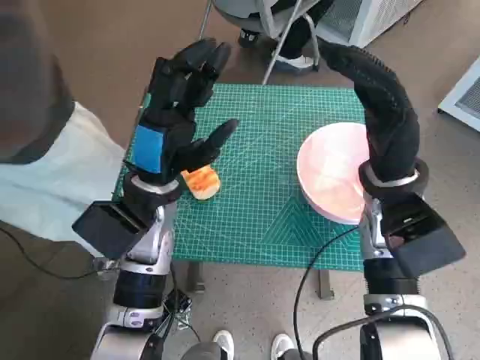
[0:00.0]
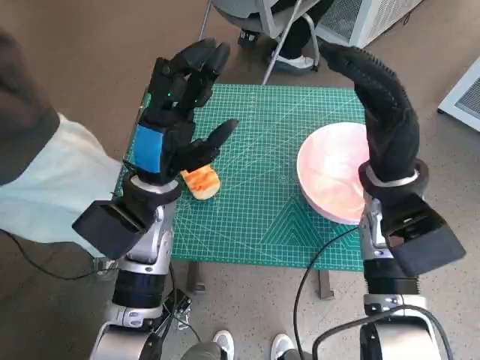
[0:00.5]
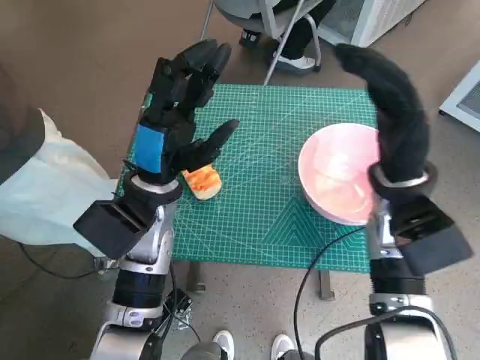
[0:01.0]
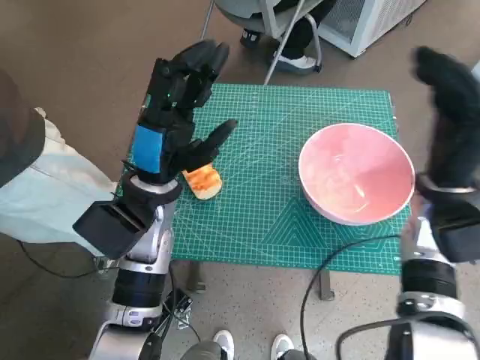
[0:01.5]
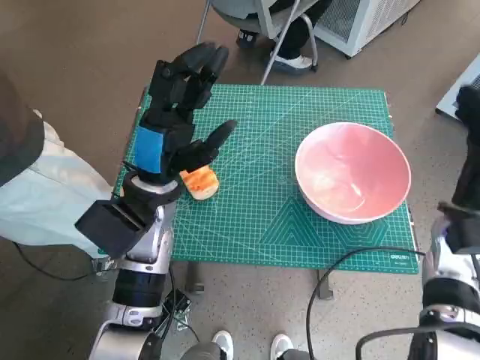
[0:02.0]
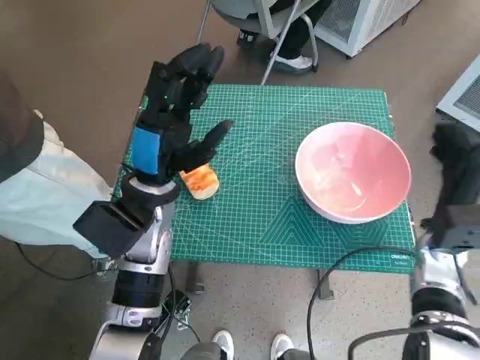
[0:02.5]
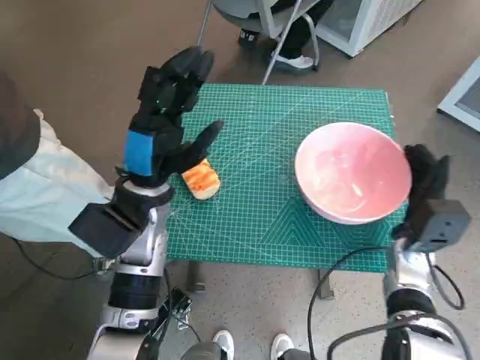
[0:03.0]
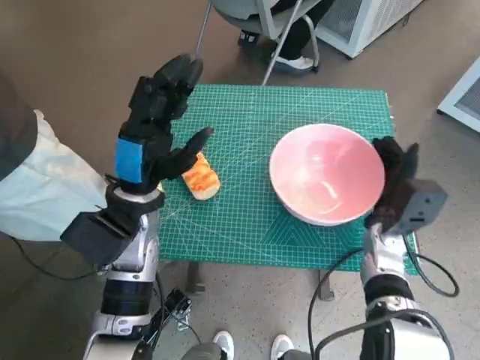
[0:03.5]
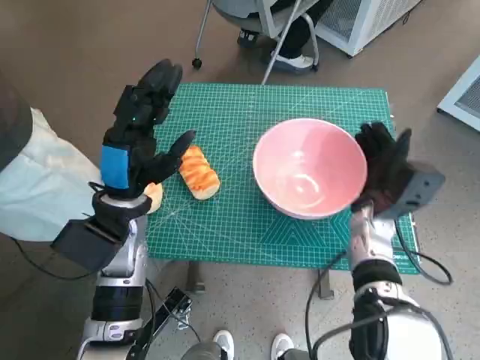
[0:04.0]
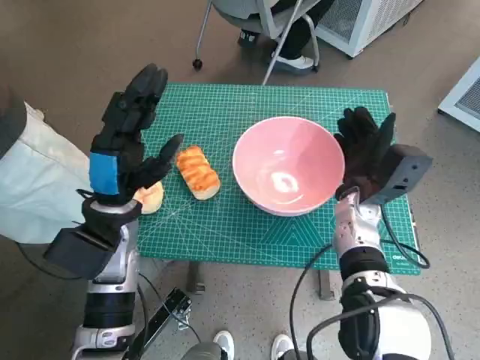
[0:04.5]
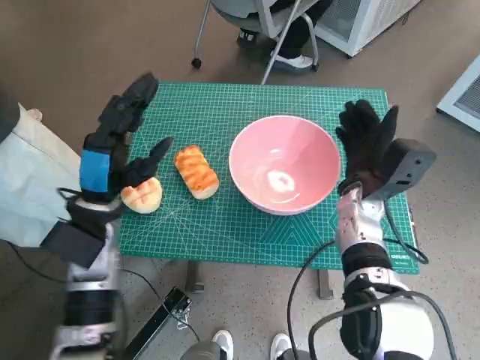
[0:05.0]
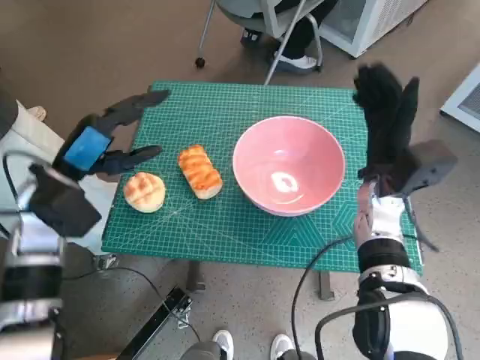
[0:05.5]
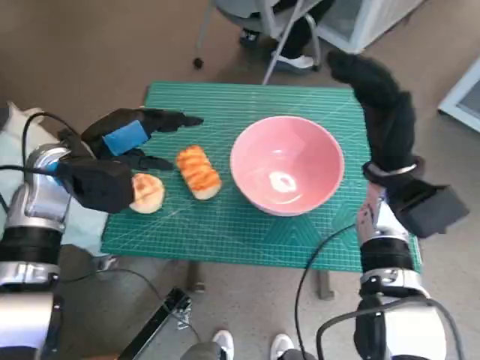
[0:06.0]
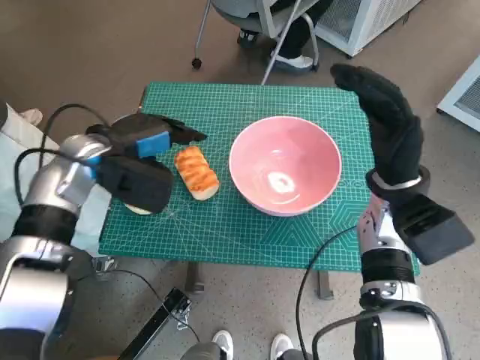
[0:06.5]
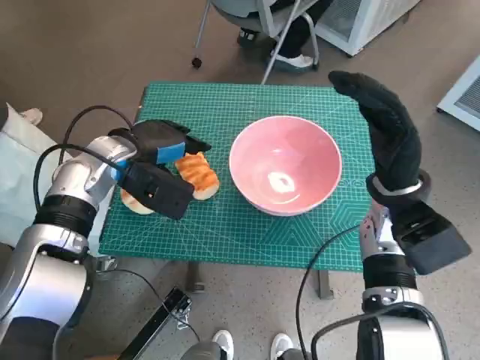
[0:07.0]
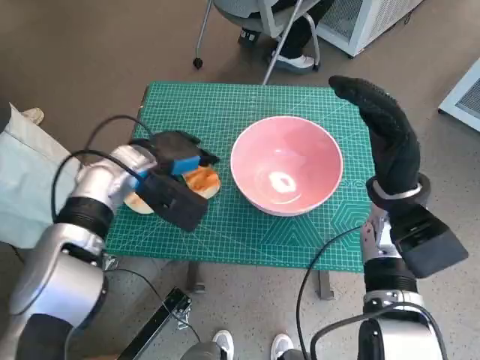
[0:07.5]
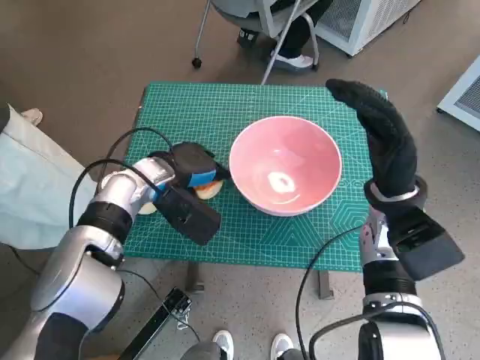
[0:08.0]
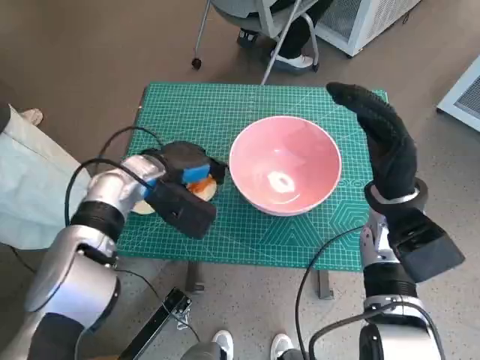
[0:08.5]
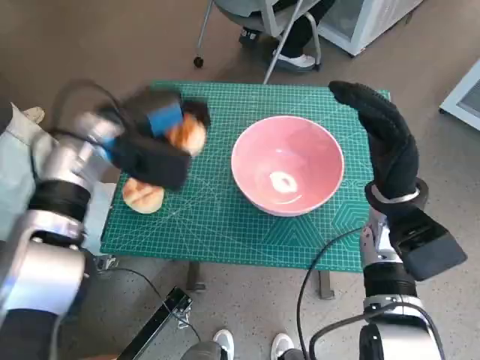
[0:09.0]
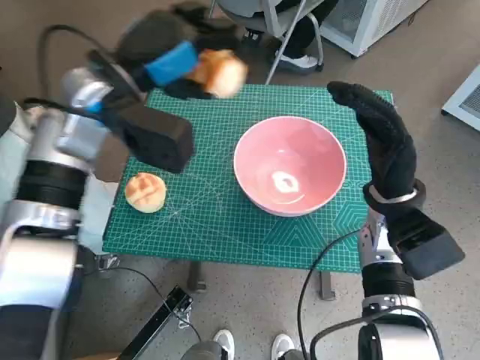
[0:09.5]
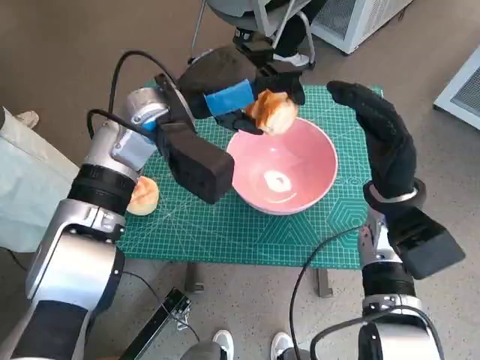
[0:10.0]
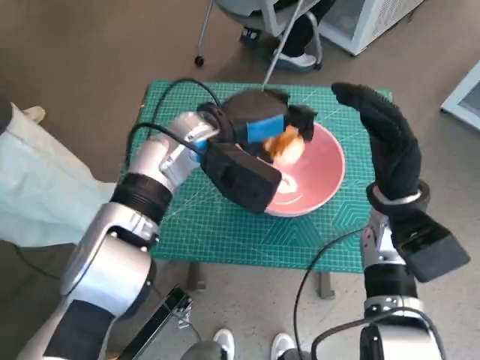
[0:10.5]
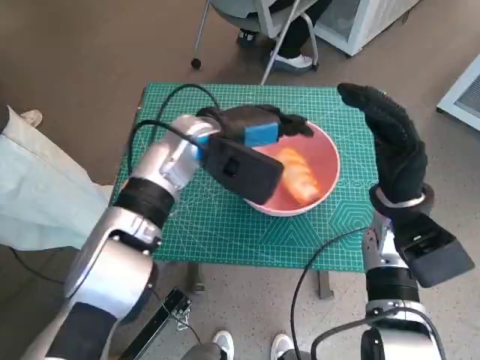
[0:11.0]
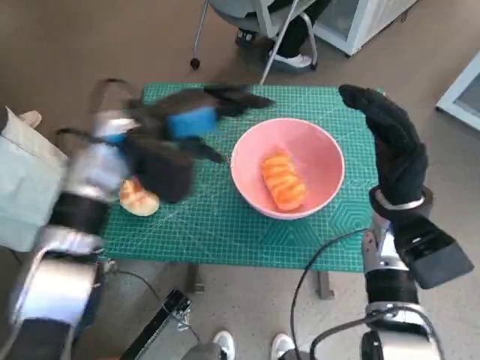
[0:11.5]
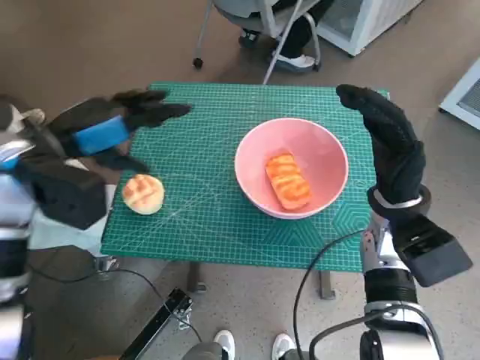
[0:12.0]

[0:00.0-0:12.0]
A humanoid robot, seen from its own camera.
Task of the whole recording: Push the bowl to the center of the table and put the bread into the bowl.
Step, 0.0 to 5.0 s: Move the pink bowl to the center of table with right hand.
Step, 5.5 to 8.0 s: Grasp the long bread with left hand.
Step, 8.5 to 10.5 s: Place the long bread in pink bowl with left hand.
2.0 to 4.0 s: The right hand heads to the left and downward, covering some 10 cm.
4.0 to 6.0 s: The right hand goes roughly 10 cm upward, while the left hand goes roughly 10 cm to the left and upward.
6.0 to 8.0 s: The left hand heads to the right and downward, covering some 10 cm.
8.0 to 10.0 s: The left hand travels upward by about 10 cm.
10.0 to 12.0 s: The left hand is displaced to the left and backward by roughly 15 cm.

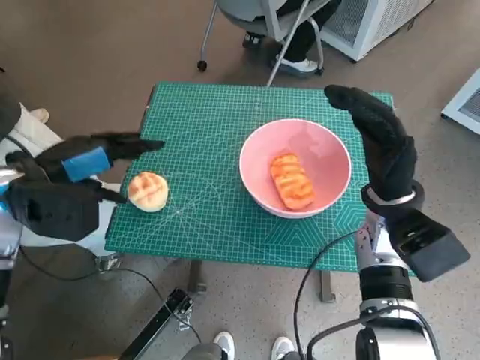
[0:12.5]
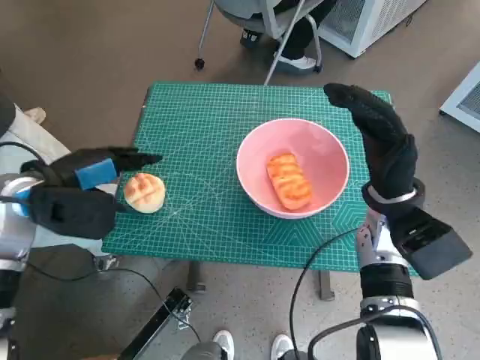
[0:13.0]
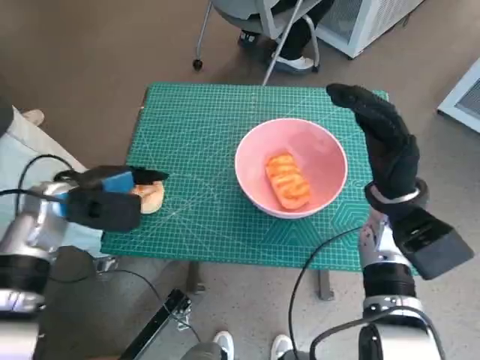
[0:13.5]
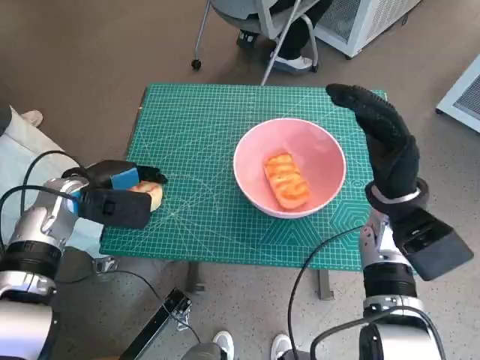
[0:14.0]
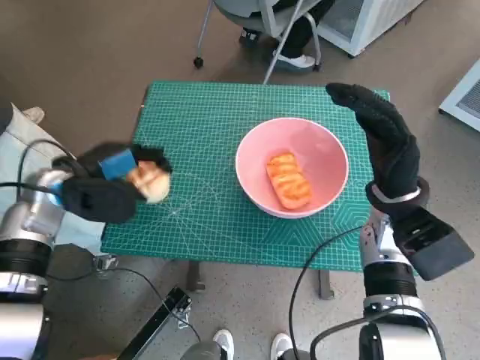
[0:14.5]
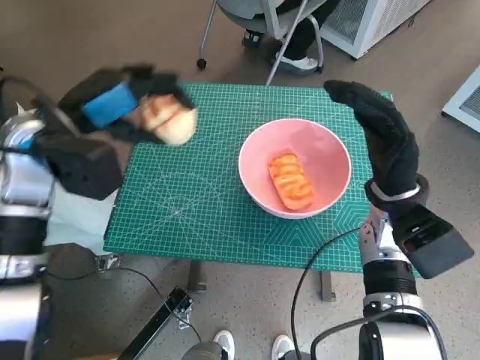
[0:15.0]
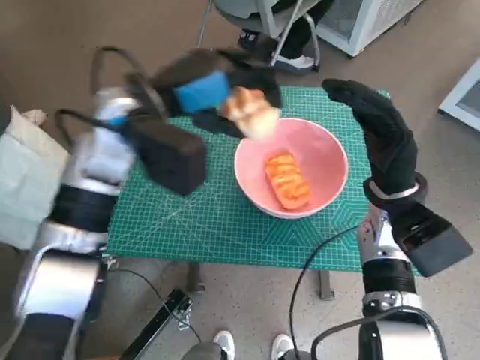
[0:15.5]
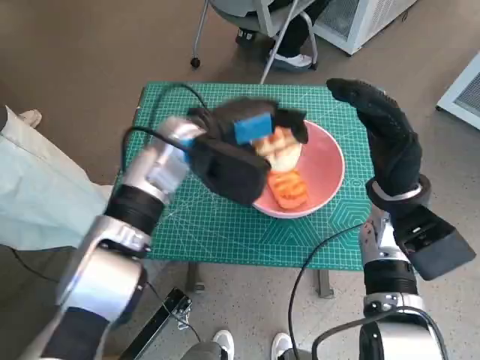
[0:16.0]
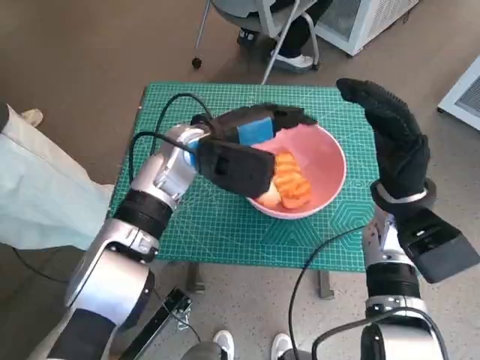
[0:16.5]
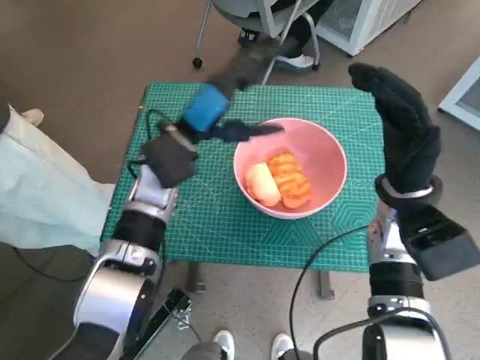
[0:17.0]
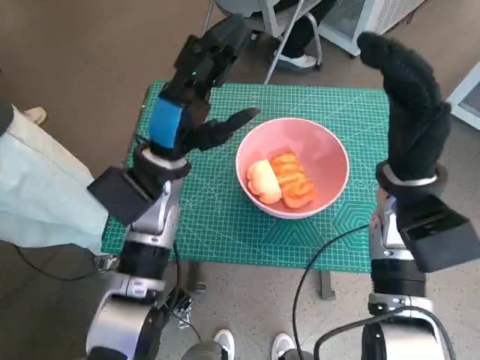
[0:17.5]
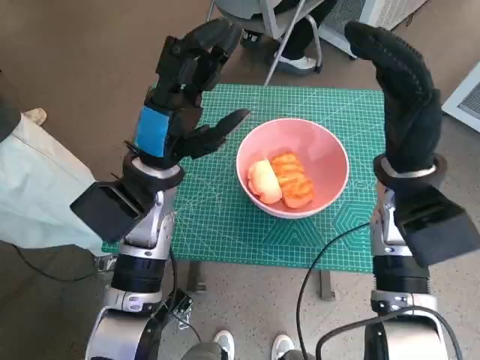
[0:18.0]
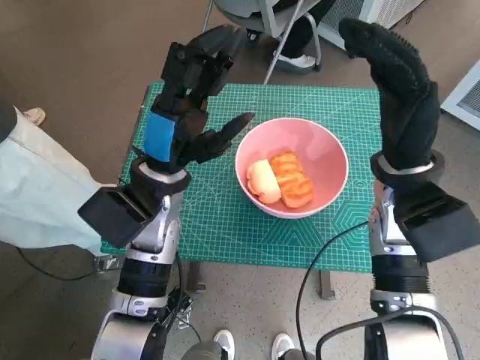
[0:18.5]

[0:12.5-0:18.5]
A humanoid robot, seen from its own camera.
Task of the whole recording: Push the bowl to the center of the table and put the bread into the bowl.
Step, 12.5 to 14.0 s: Grasp the round bread with left hand.
Step, 14.5 to 16.0 s: Place the round bread in pink bowl with left hand.
12.5 to 14.5 s: The left hand moves downward, some 5 cm.
14.5 to 16.5 s: The left hand goes roughly 20 cm to the right.
16.5 to 18.5 s: The right hand travels upward by roughly 5 cm. Meanwhile the left hand shifts roughly 5 cm backward.

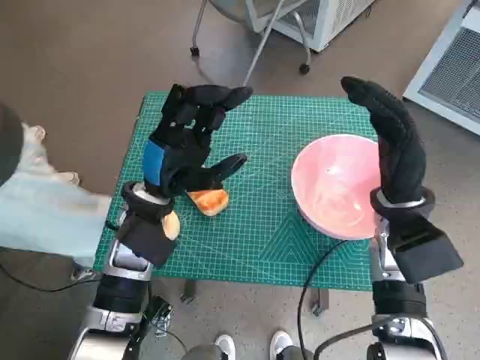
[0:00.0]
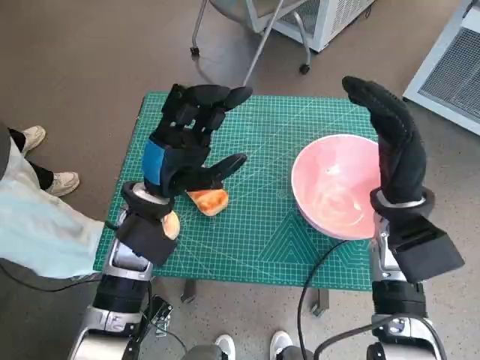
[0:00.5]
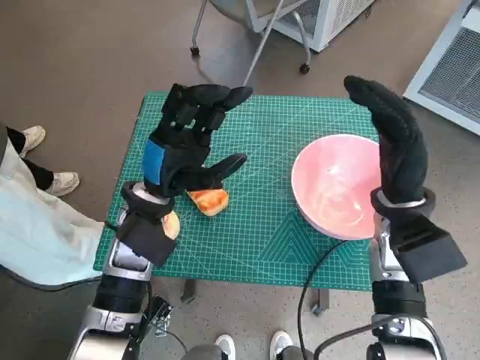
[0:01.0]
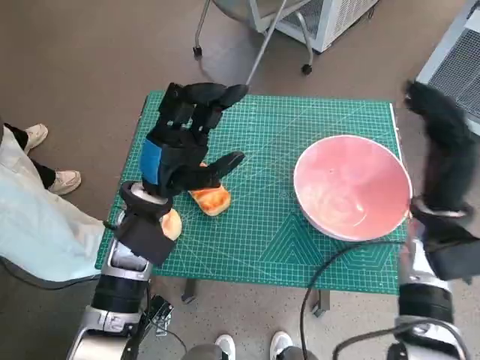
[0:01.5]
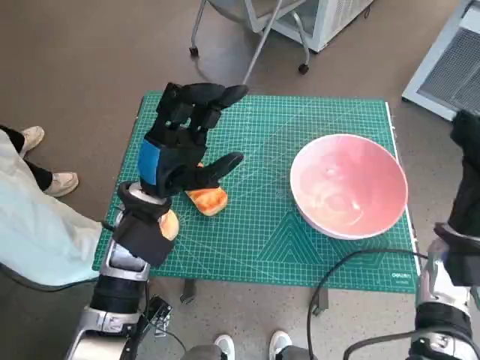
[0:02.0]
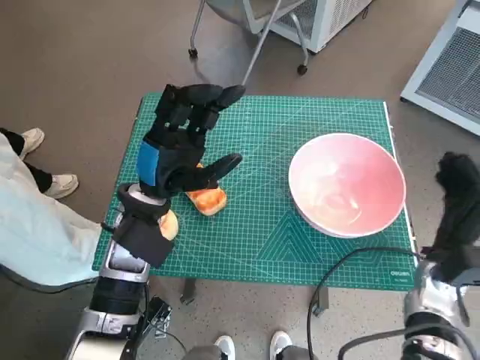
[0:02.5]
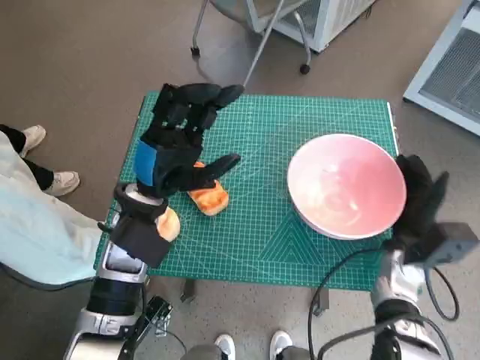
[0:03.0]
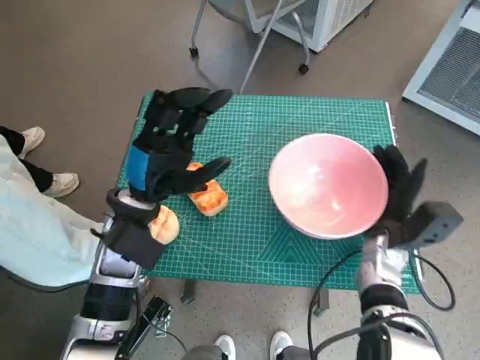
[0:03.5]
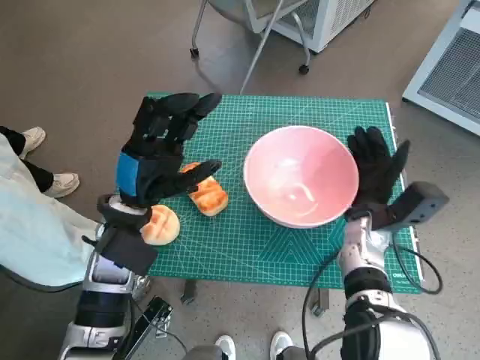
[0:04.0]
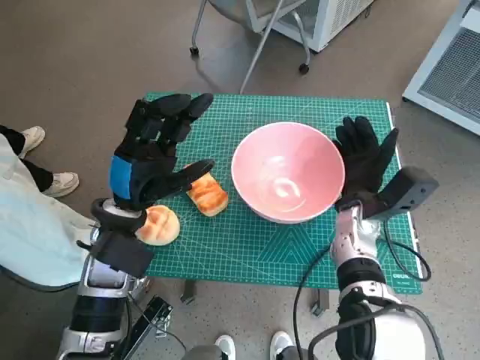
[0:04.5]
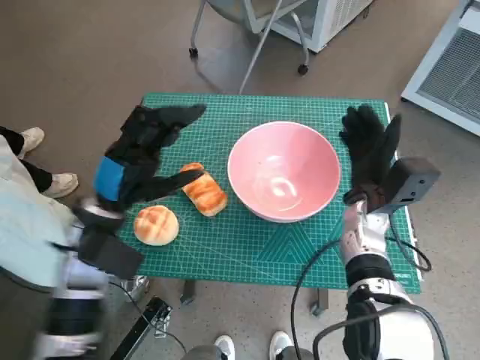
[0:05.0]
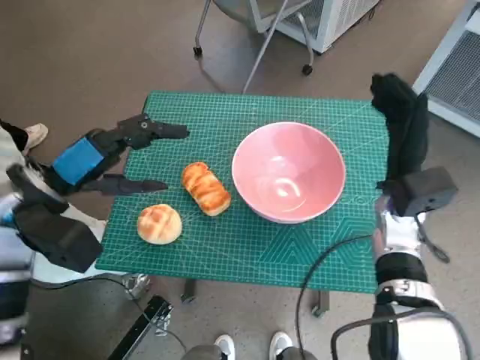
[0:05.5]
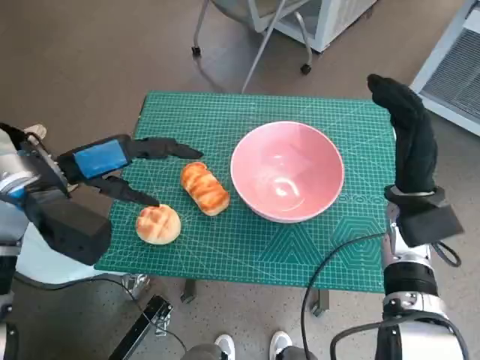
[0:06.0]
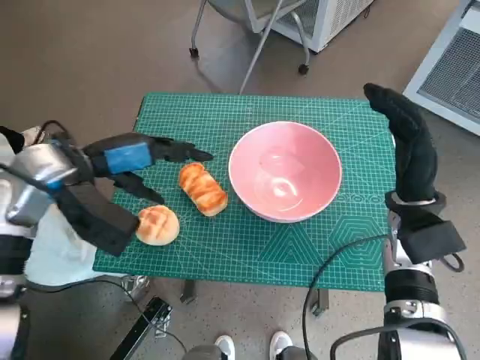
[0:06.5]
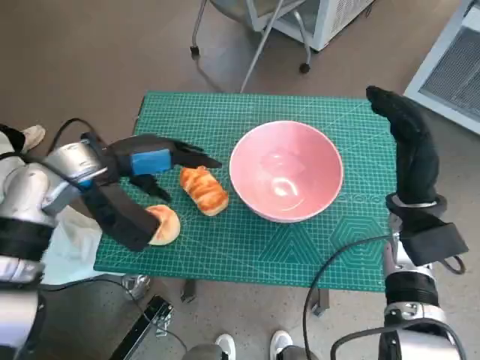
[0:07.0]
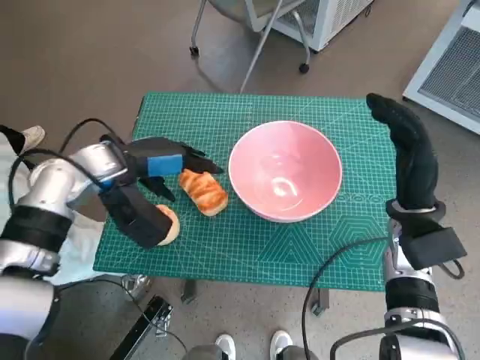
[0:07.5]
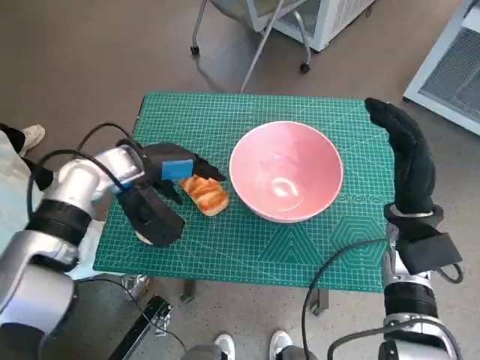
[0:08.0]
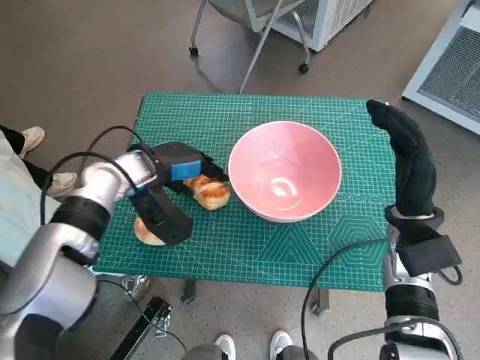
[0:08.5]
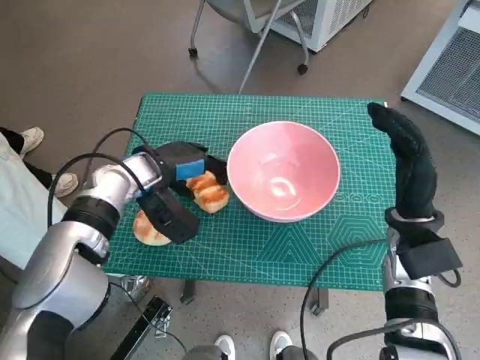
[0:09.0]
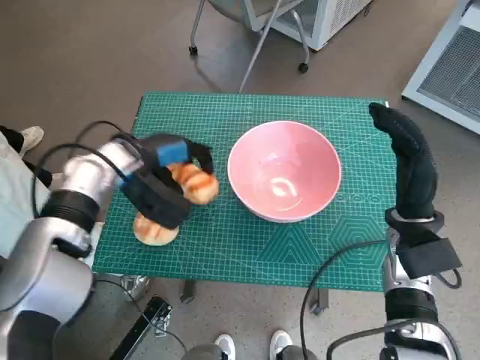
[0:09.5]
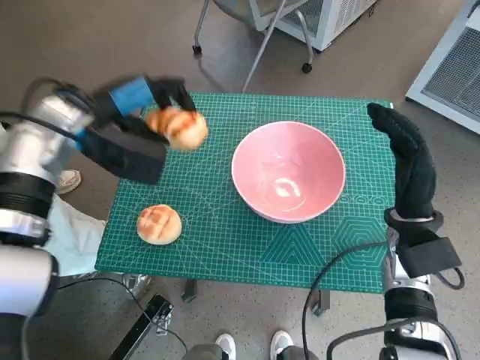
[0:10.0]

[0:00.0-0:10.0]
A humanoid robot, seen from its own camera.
Task of the whole recording: Push the bowl to the center of the table and put the bread into the bowl.
Step, 0.0 to 4.5 s: Move the pink bowl to the center of table with right hand.
Step, 5.0 to 9.0 s: Grasp the long bread with left hand.
2.0 to 4.0 s: The right hand is displaced to the left by some 10 cm.
4.0 to 6.0 s: The left hand is displaced upward and to the left by about 10 cm, while the right hand goes roughly 5 cm upward.
6.0 to 8.0 s: The left hand is displaced to the right, forward and downward by approximately 10 cm.
8.0 to 10.0 s: The left hand goes roughly 5 cm upward.
